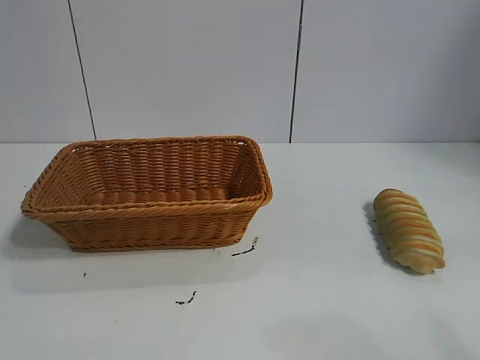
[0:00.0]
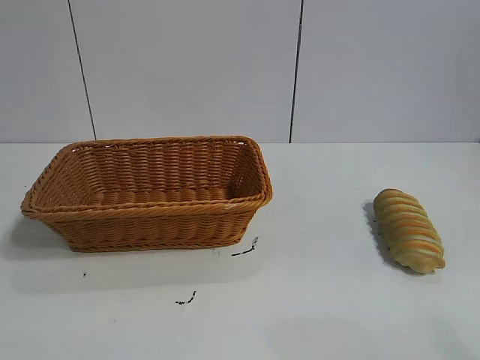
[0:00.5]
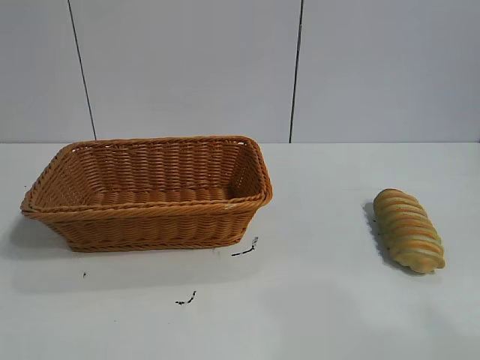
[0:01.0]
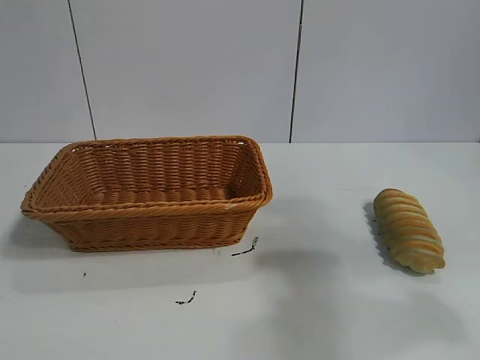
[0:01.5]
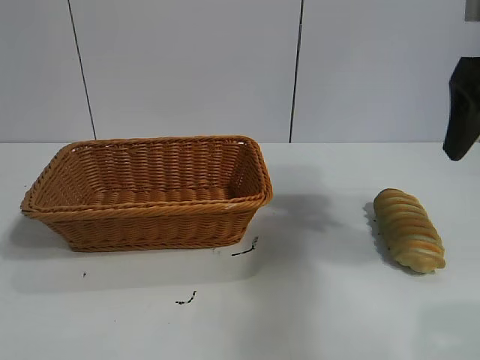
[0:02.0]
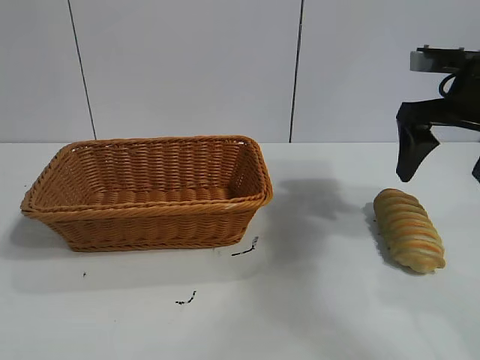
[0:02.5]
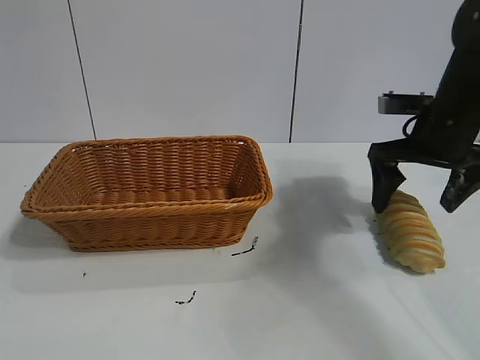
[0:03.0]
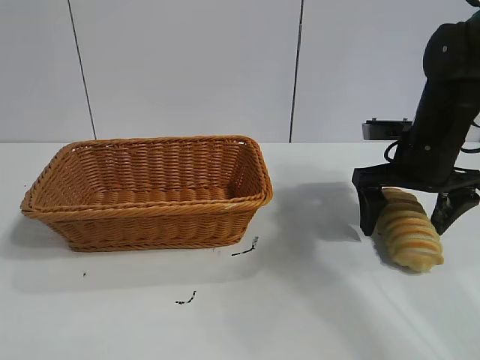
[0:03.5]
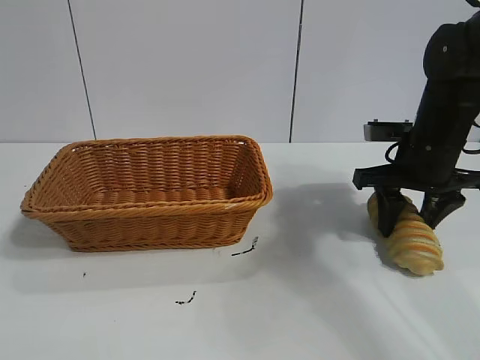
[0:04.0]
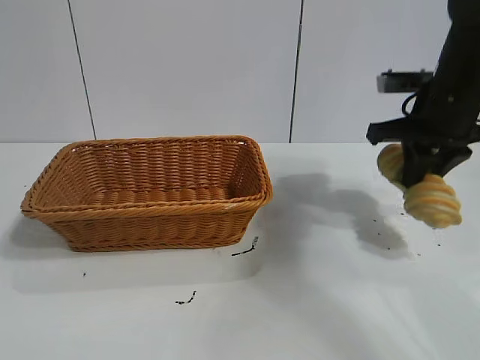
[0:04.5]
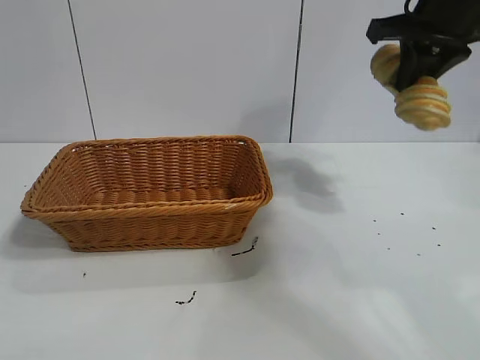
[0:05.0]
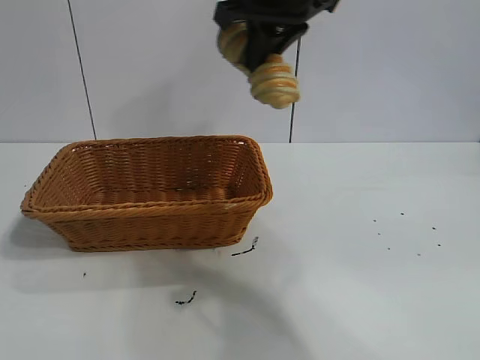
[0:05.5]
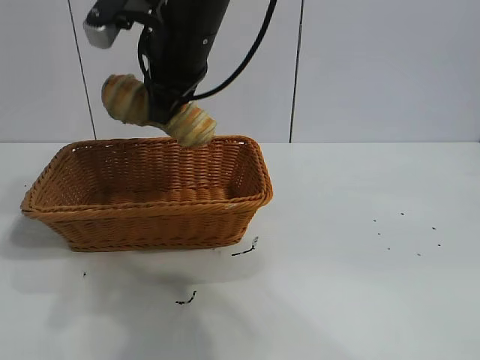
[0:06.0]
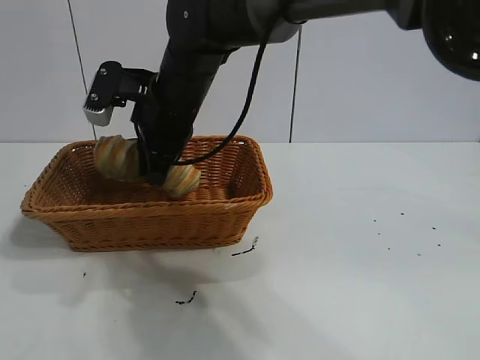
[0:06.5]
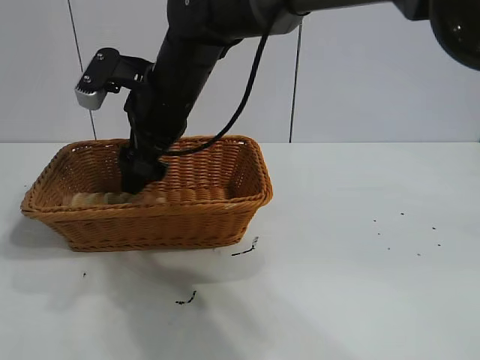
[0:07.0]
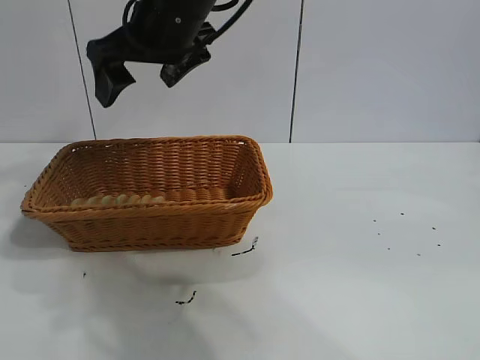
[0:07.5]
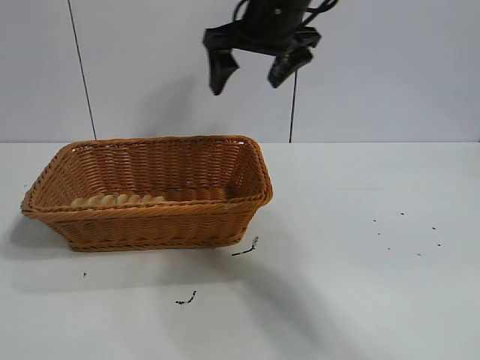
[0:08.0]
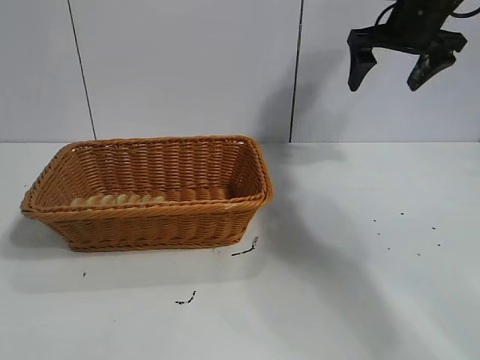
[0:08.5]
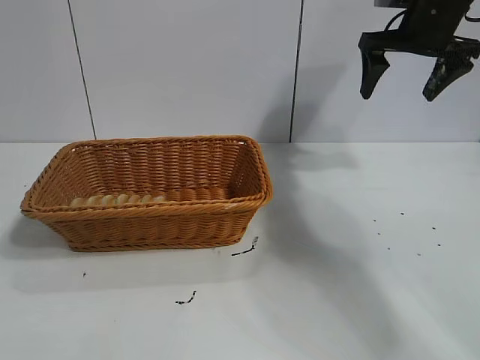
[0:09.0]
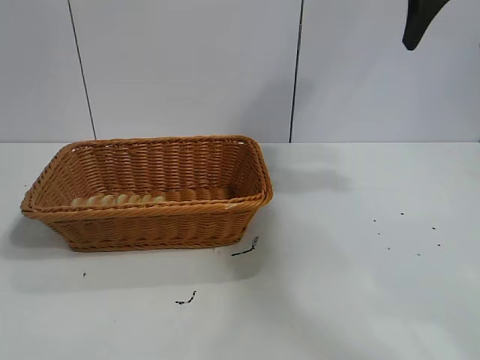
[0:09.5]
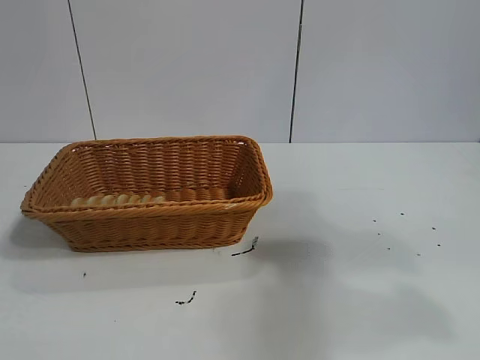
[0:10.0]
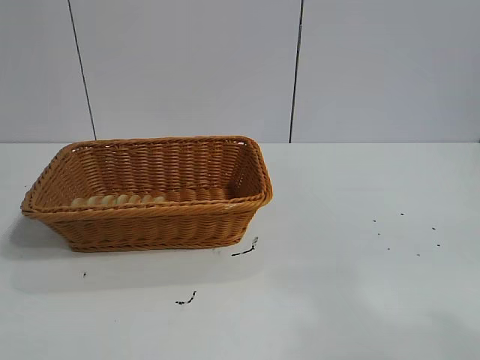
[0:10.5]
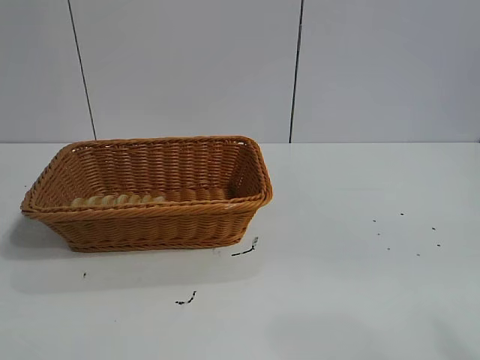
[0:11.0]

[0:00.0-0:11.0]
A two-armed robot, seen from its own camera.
Task of the whole recording: pick up the long bread and put it into the basket.
Step, 0:02.0 to 0:04.0: Grasp the long bread with right gripper.
Step, 0:04.5 to 0:07.0: Place the long bread in the basket with right gripper.

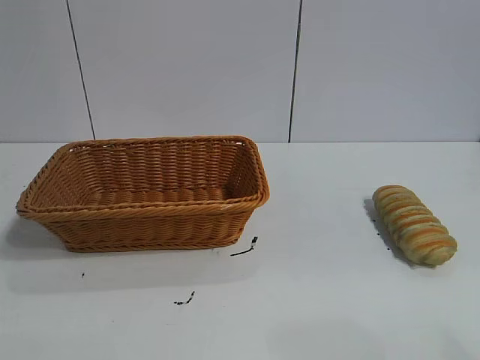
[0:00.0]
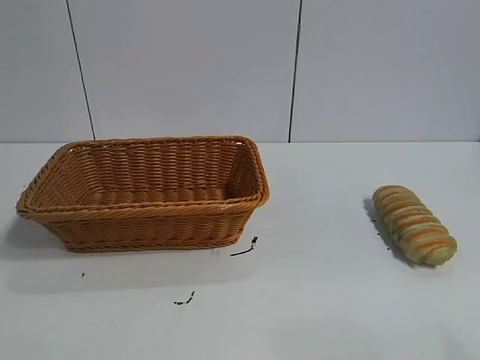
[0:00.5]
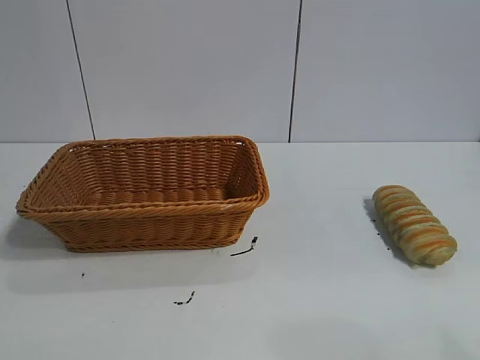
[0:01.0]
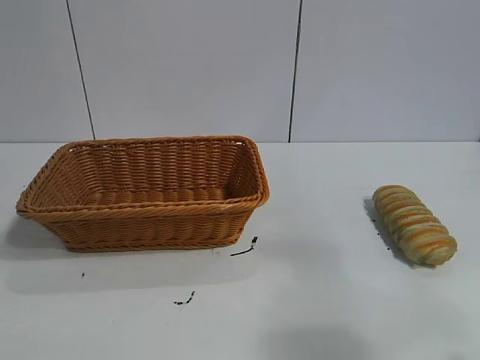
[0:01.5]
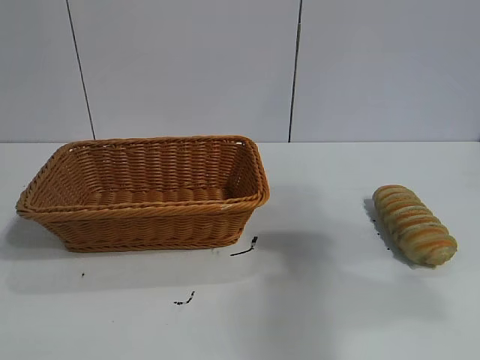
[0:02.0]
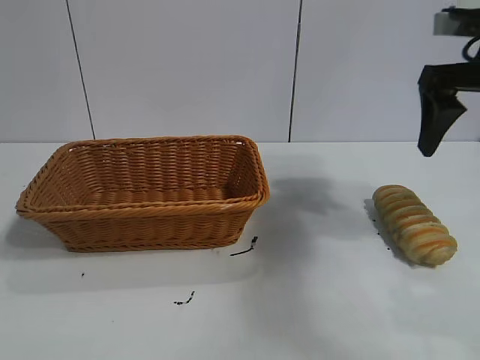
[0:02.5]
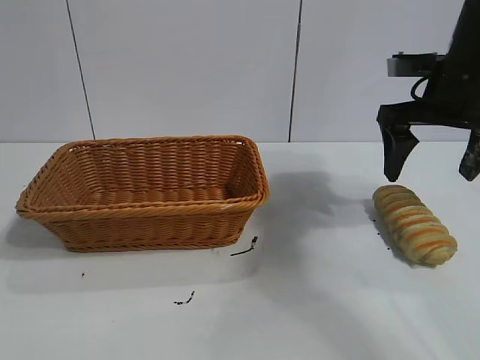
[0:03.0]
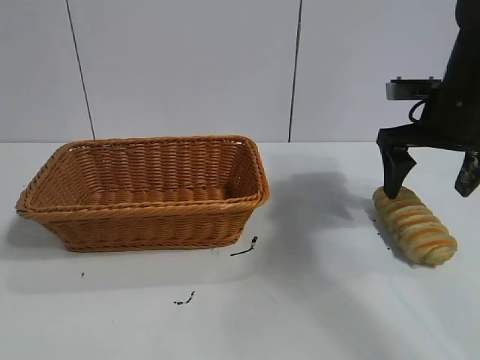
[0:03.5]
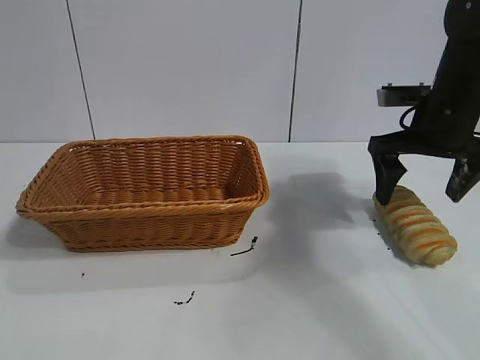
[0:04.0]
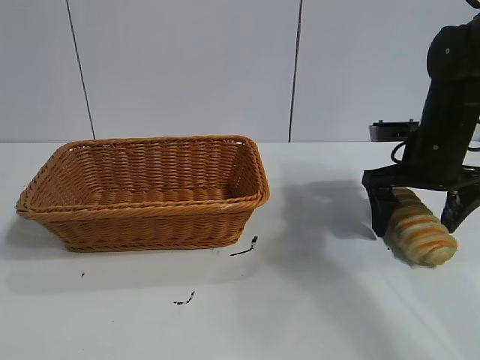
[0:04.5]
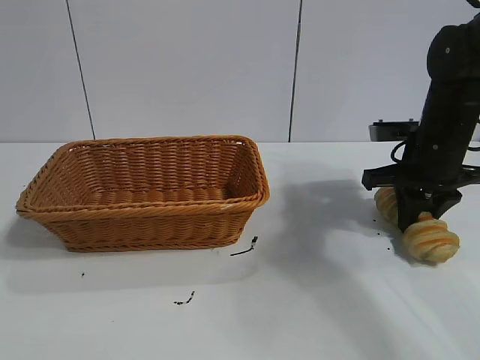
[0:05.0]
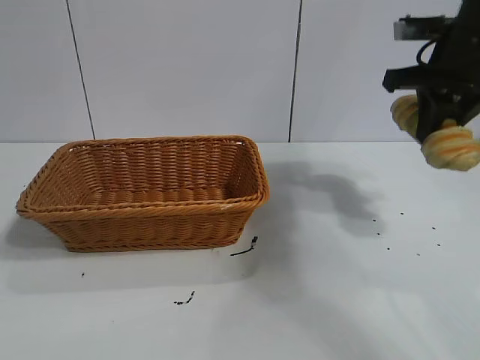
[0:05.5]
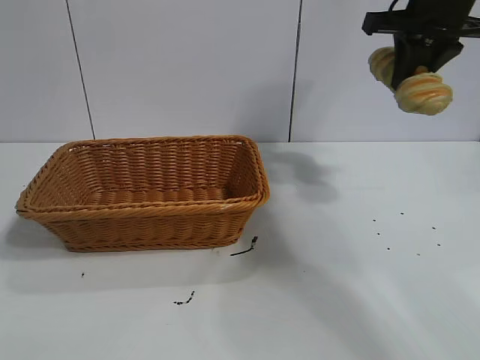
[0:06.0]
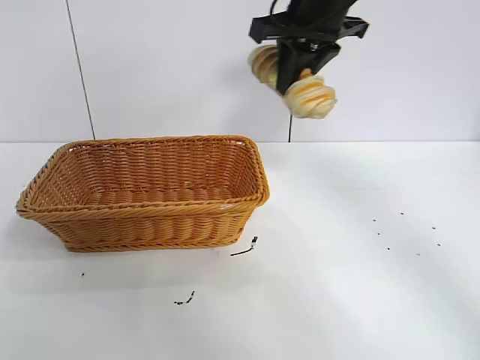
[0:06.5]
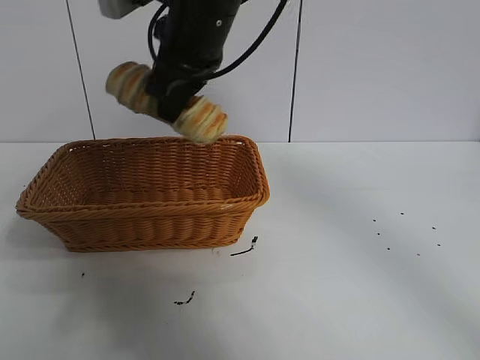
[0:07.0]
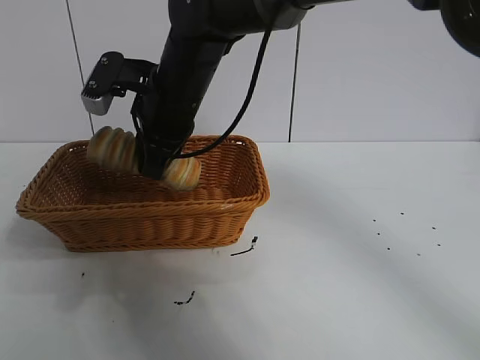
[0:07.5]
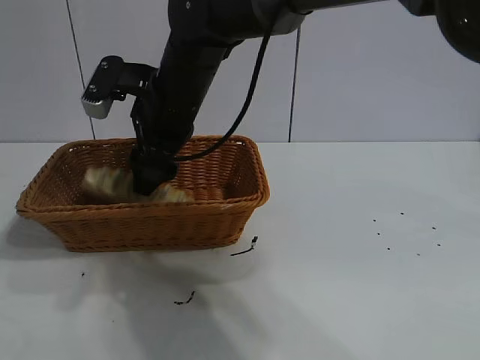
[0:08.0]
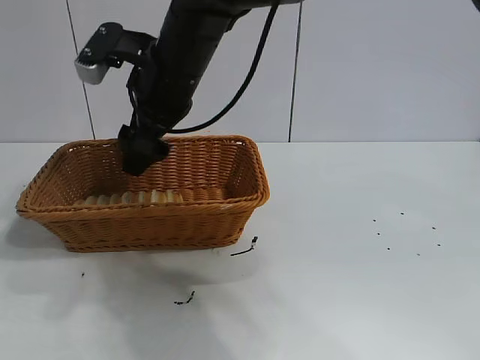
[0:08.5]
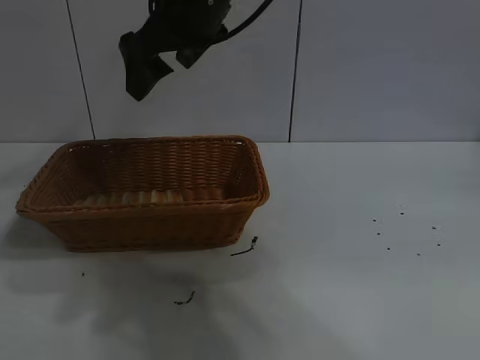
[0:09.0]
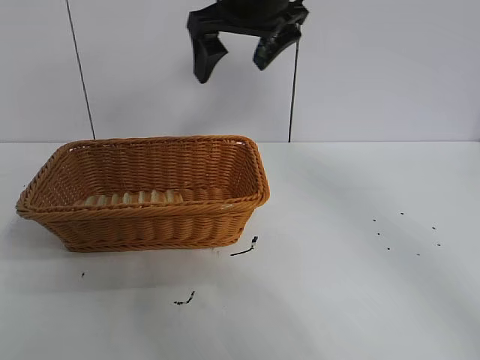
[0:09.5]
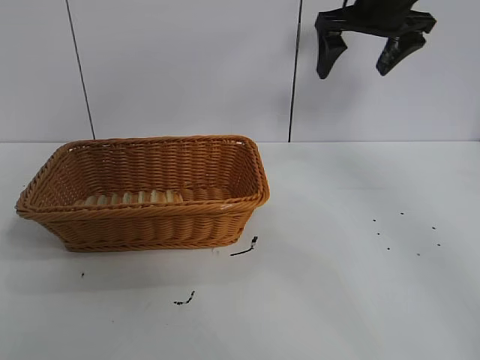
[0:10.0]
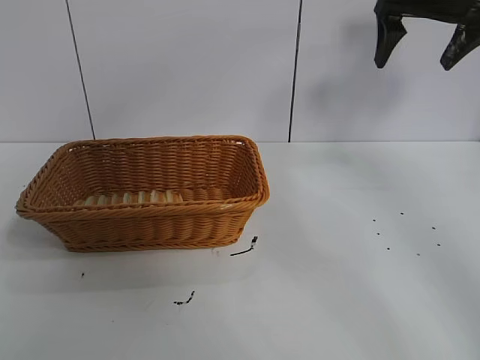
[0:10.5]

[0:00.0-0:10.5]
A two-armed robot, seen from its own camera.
Task of the whole recording: pick up the long bread and put it into the basket.
Step, 0:02.5 to 0:05.0: Grasp the long bread with right gripper.
Step, 0:05.5 to 0:08.5: Place the long bread in the basket with right gripper.
